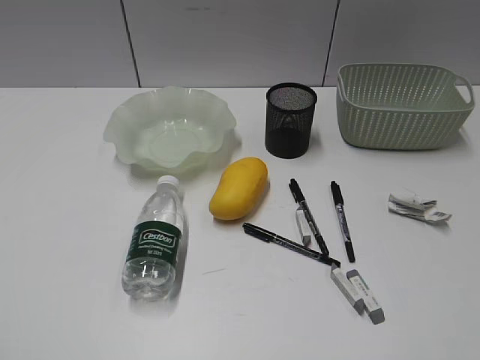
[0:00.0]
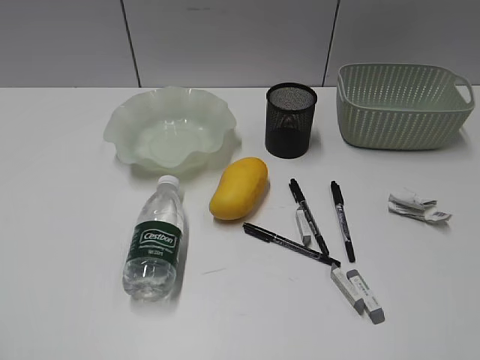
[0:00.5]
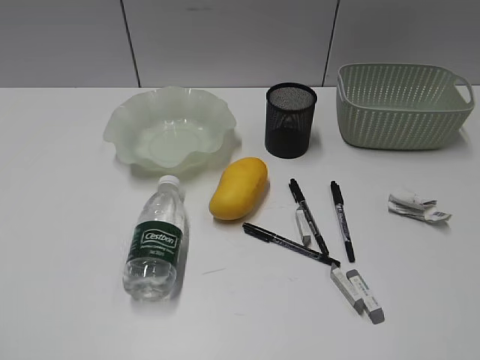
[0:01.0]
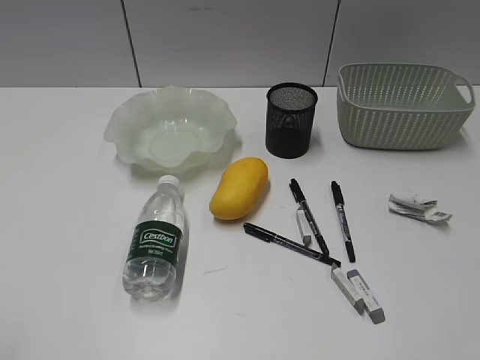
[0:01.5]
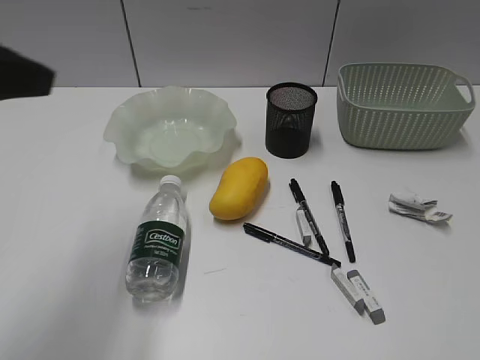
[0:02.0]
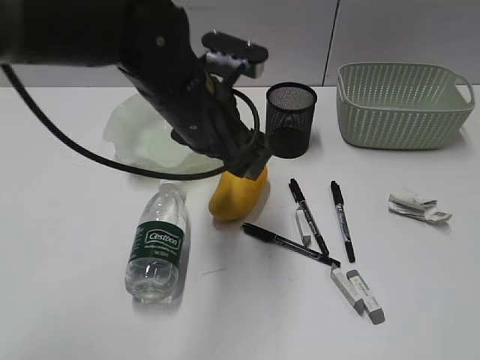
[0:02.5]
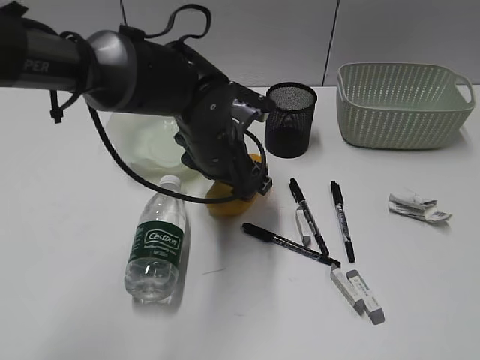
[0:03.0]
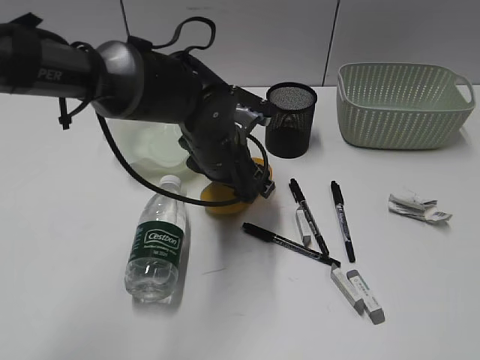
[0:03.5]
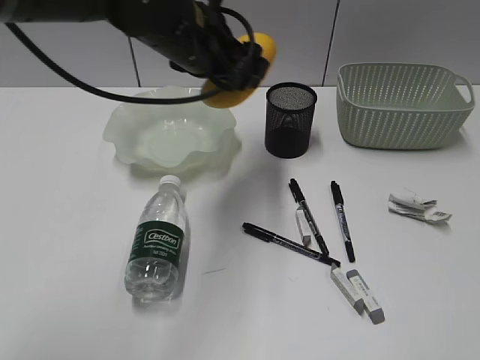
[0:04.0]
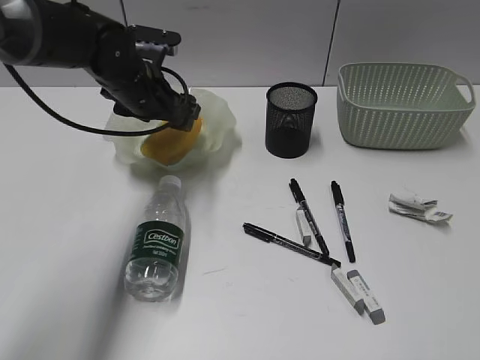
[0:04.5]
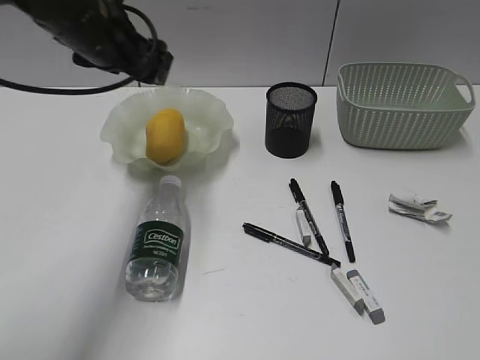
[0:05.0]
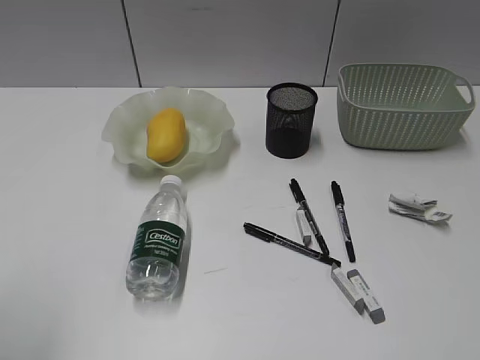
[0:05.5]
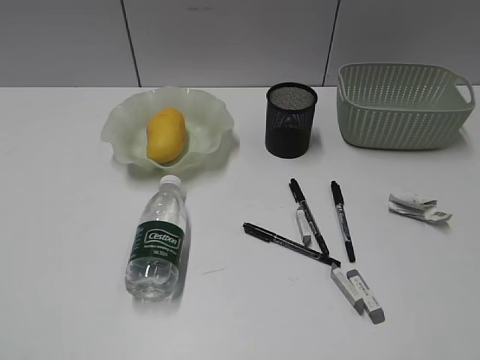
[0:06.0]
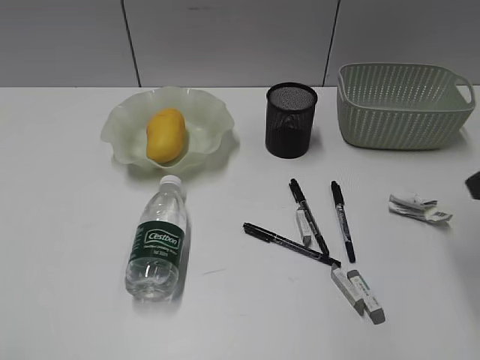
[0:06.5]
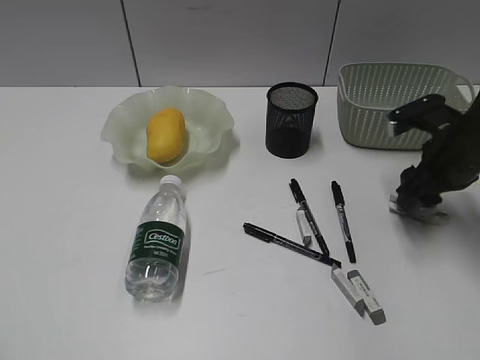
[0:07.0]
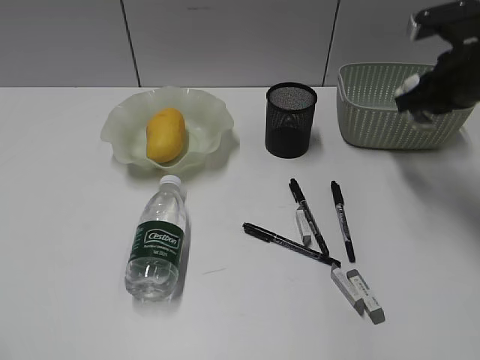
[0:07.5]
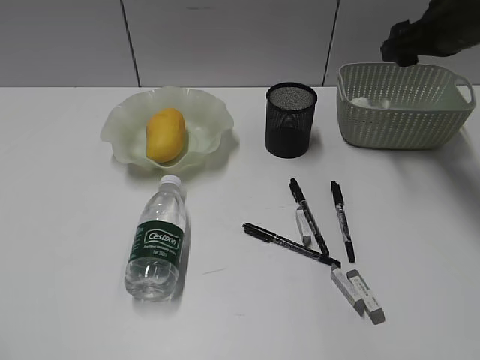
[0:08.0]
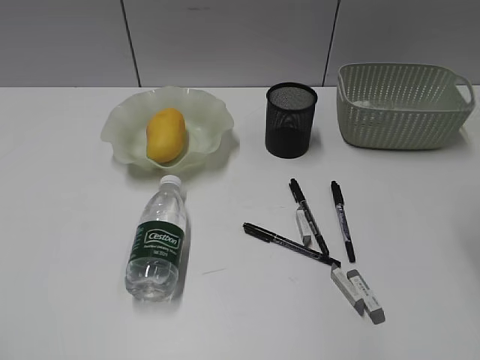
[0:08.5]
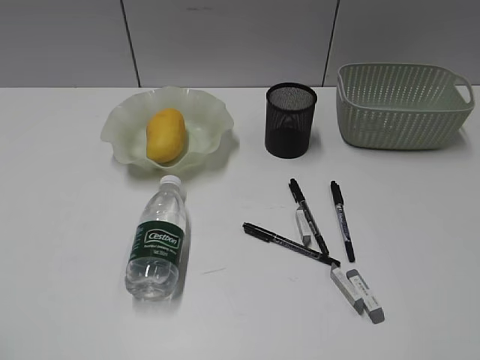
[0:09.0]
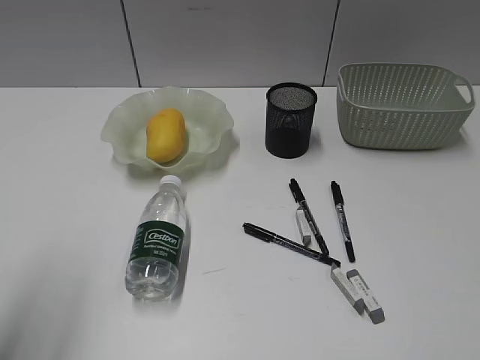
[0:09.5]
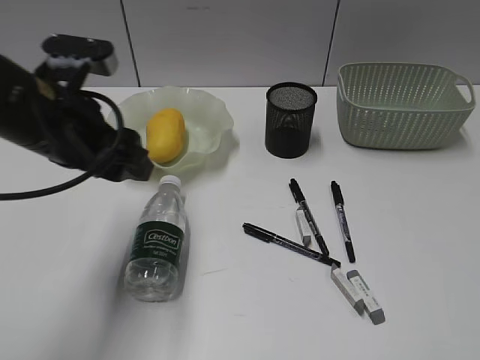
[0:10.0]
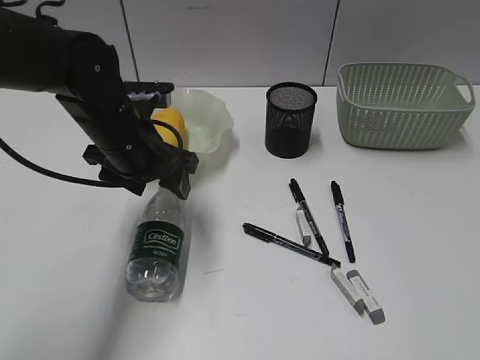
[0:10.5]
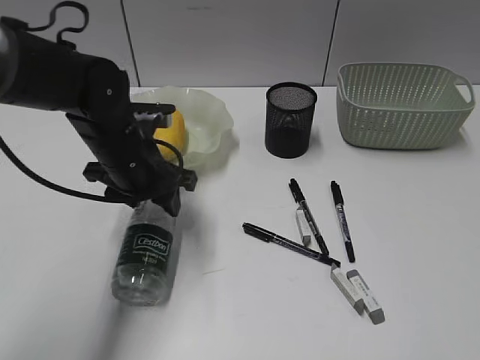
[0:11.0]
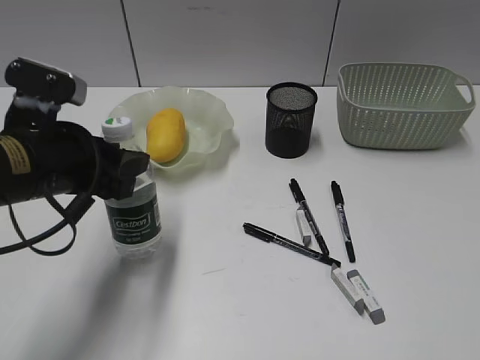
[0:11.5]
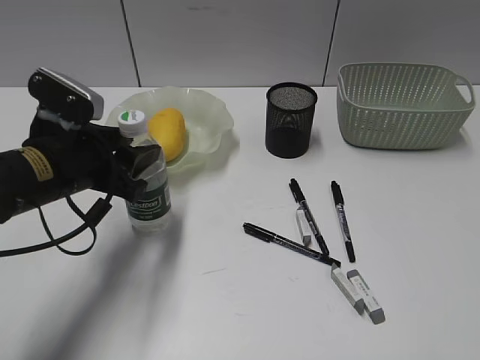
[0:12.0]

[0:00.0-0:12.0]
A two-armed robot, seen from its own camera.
Step, 0:02.0 to 0:03.5: Grasp the mango with left gripper.
Step, 0:04.0 to 0:04.5: Place the mango in the plate with left gripper.
Step, 0:05.0 to 0:07.0: Grasp the waste paper with right gripper.
Step, 0:07.5 to 0:08.0: Place the waste paper in the basket with right gripper.
Step, 0:08.5 to 0:10.5: Grasp the bottle with left gripper.
0:02.0 to 0:04.0: The left gripper is displaced forward, to the right and downward by about 25 cm.
0:04.0 to 0:06.0: The left gripper is displaced backward and to the left by approximately 50 cm.
0:06.0 to 0:08.0: The right gripper is displaced forward by roughly 40 cm, and opens.
0:08.0 to 0:10.0: The left gripper moves forward and to the right, about 35 cm; the right gripper travels backward by about 40 cm.
0:10.0 to 0:12.0: The left gripper goes approximately 5 cm downward, and goes forward and returns, some 5 cm each way.

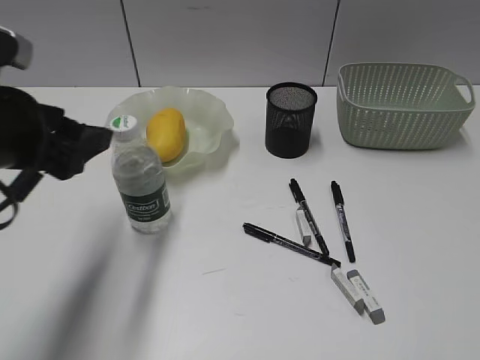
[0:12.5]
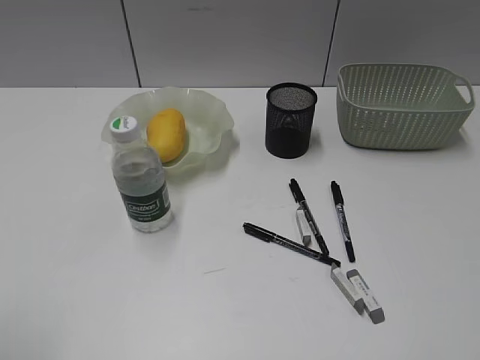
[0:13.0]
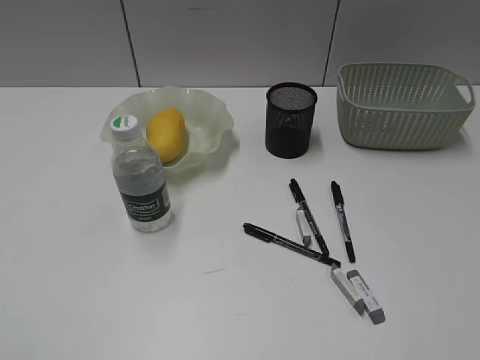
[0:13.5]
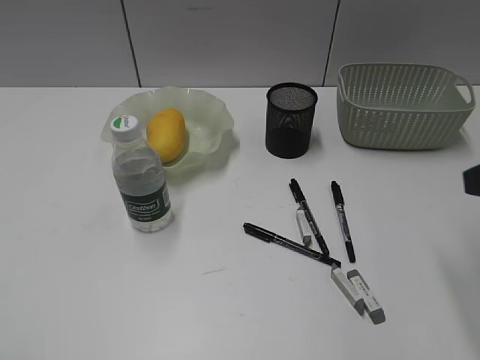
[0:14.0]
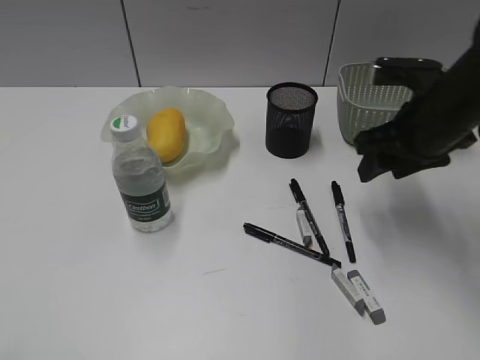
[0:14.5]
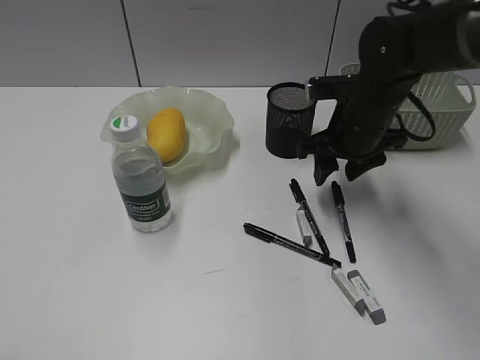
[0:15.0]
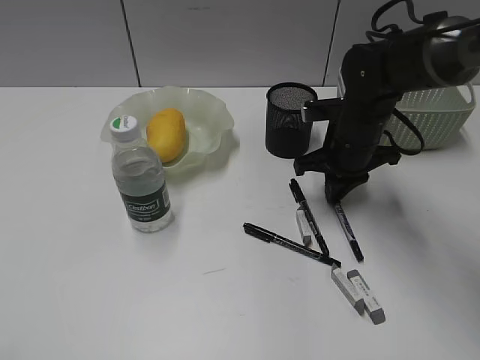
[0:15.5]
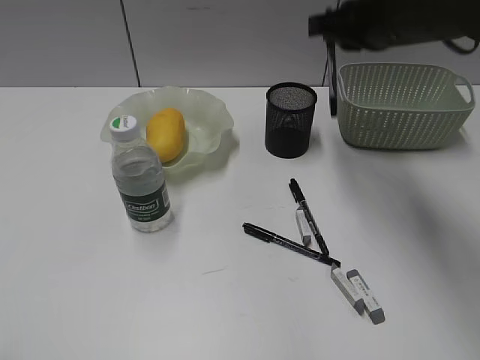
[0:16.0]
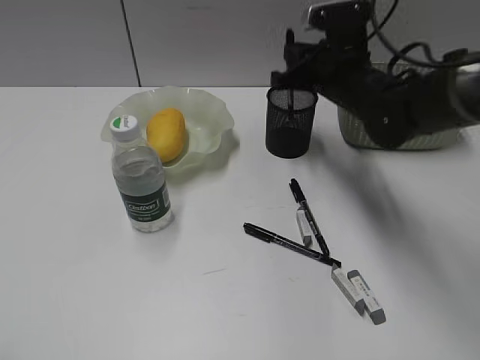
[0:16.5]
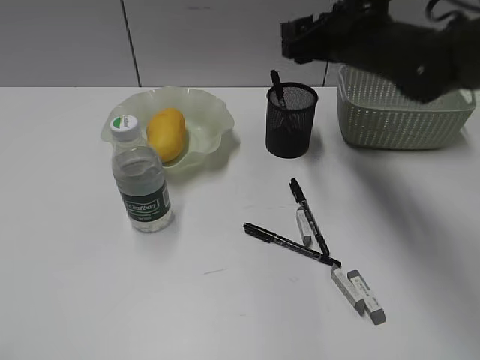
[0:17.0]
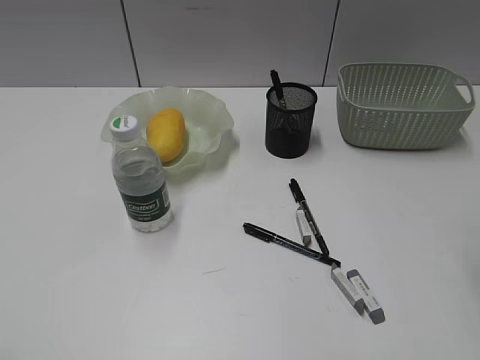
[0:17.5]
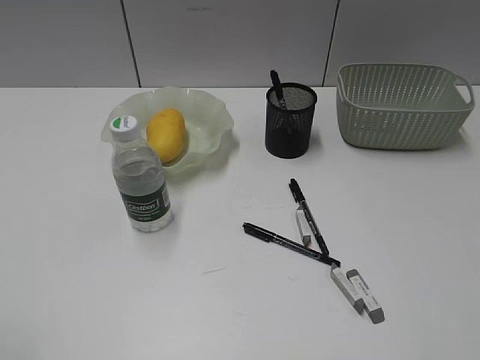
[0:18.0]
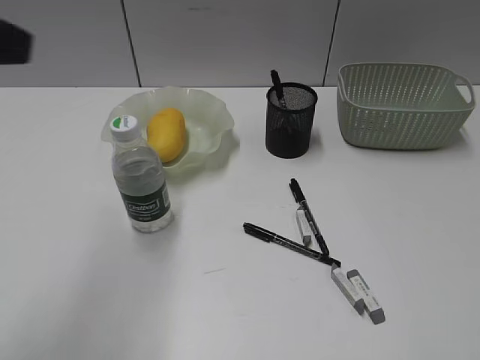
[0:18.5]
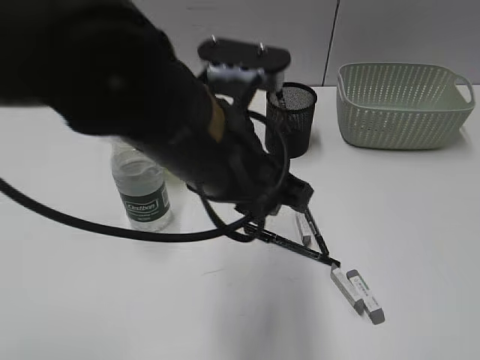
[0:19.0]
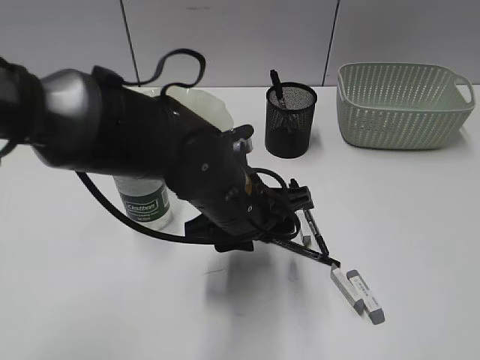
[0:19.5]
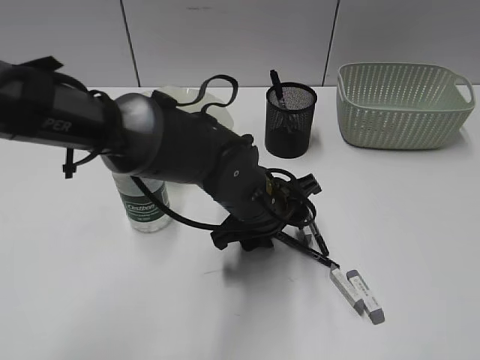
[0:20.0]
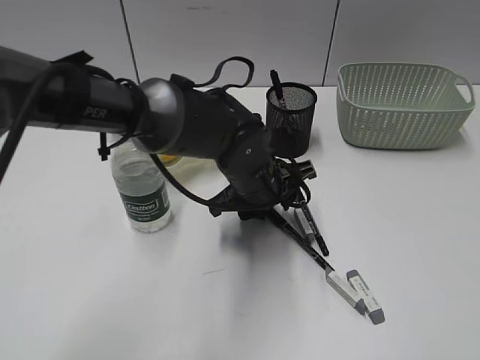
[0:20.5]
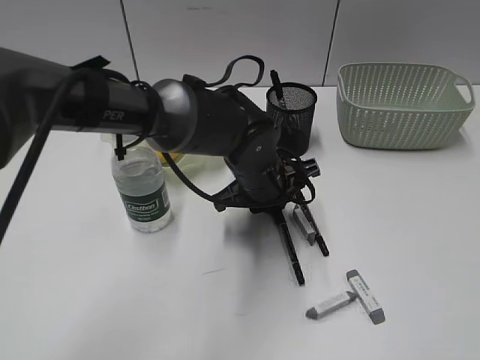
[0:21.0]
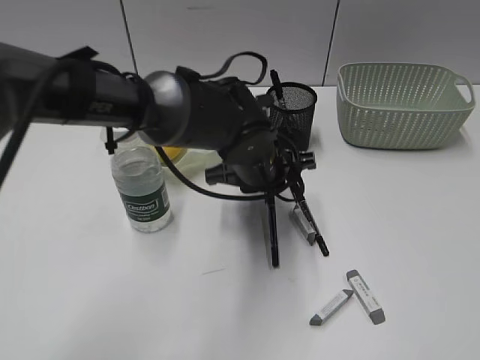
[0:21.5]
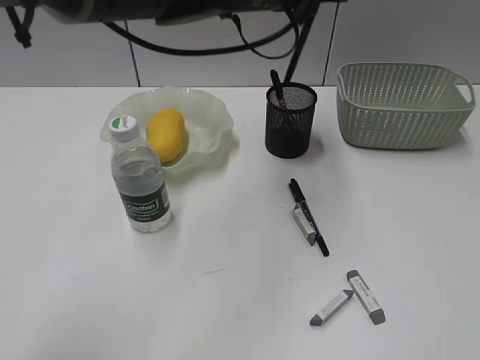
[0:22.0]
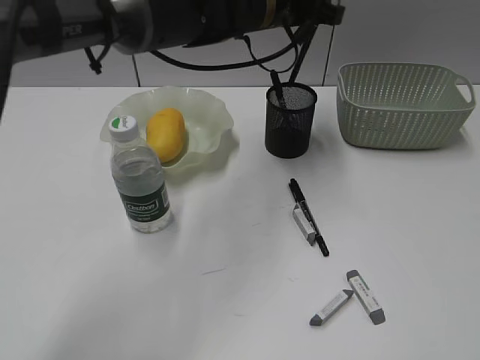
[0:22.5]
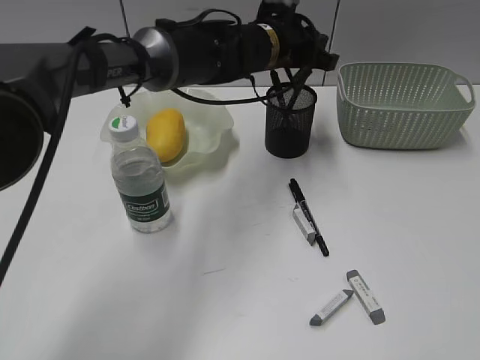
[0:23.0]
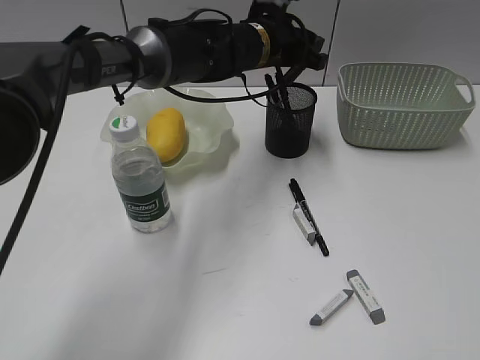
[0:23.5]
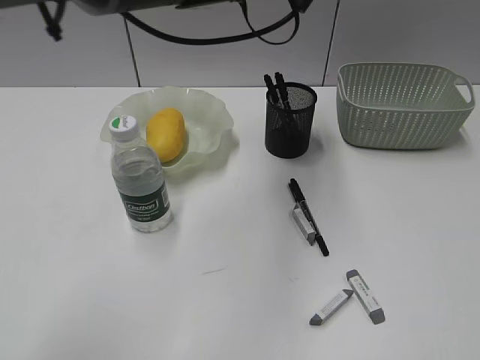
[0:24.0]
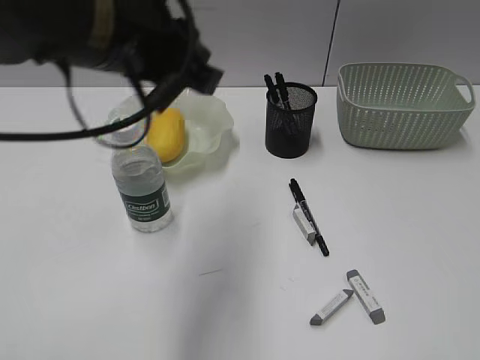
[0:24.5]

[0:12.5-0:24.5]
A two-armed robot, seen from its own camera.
Step, 0:12.5 to 0:15.0: Grasp the black pen with right gripper.
Step, 0:15.5 to 0:16.5: Place the black pen in pen holder with right gripper.
Step, 0:17.0 to 0:21.0: Grasp the black pen with left gripper.
Step, 0:21.5 to 0:23.5: Place the black pen in pen holder with left gripper.
0:12.5 to 0:14.5: The right gripper travels forward by approximately 35 cm; the left gripper shifts approximately 25 cm backward and to the left, and closes.
0:14.5 to 0:16.5: The right gripper swings up and down, roughly 15 cm each way, with 2 reversals, and closes up.
0:16.5 to 0:18.5: The right gripper travels backward and to the right by approximately 50 cm, and opens its fingers. Meanwhile the left gripper shifts about 25 cm forward, to the right and upward.
0:18.5 to 0:20.5: The left gripper goes approximately 40 cm downward, to the right and forward.
0:20.5 to 0:22.5: The left gripper heads upward and forward, covering roughly 20 cm, and closes its fingers.
0:22.5 to 0:24.5: The left gripper heads backward and to the left, covering some 25 cm.

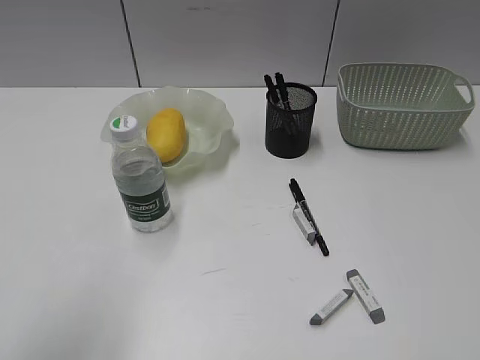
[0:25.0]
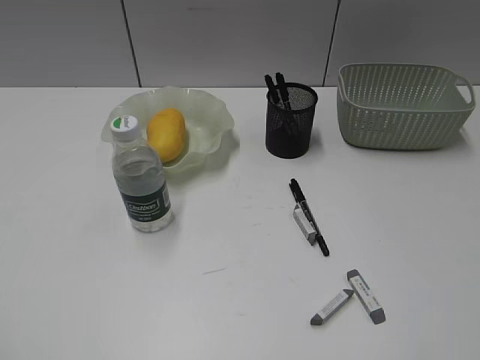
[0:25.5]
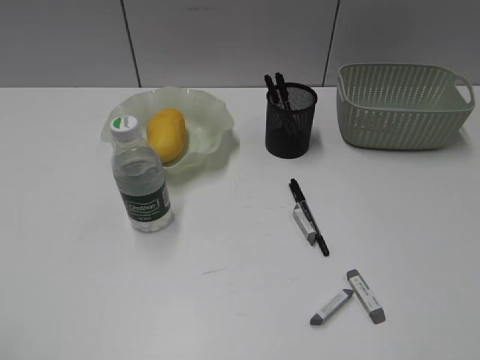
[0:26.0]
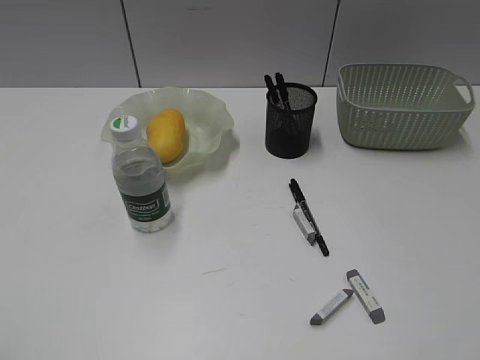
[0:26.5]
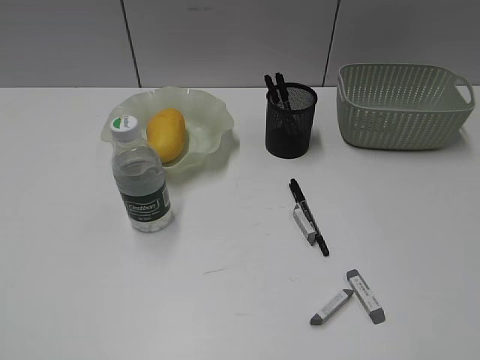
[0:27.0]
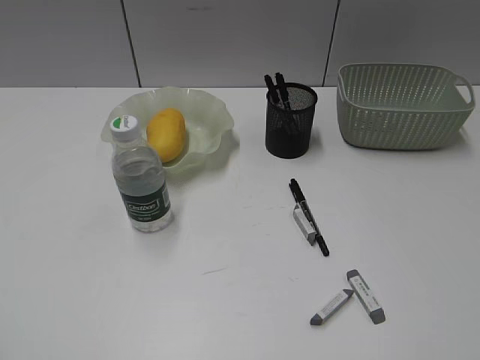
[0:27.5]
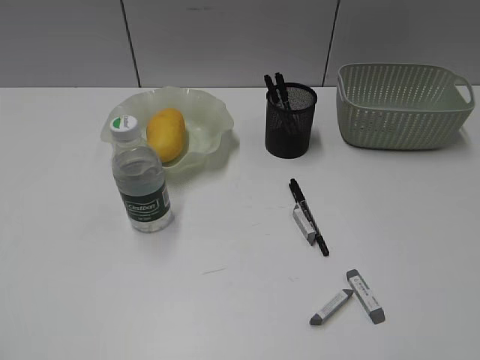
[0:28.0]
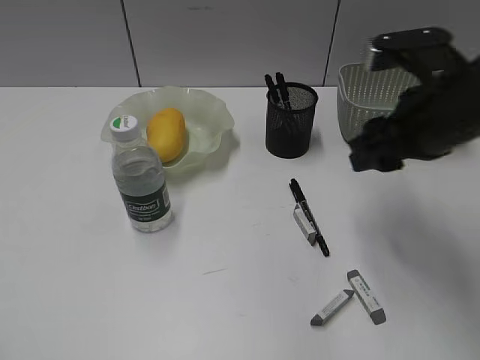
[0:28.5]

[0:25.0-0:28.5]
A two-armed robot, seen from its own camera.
0:27.0 to 0:28.5: The right gripper moves forward and to the left, approximately 30 cm, and opens up.
